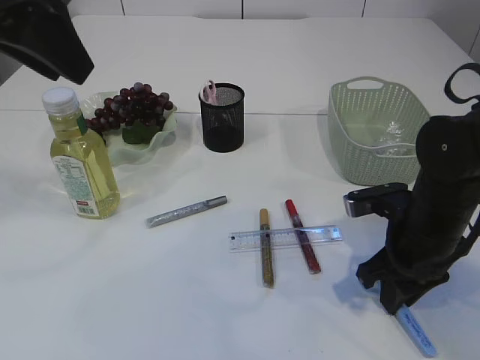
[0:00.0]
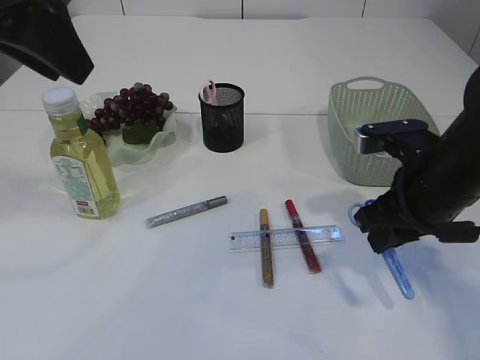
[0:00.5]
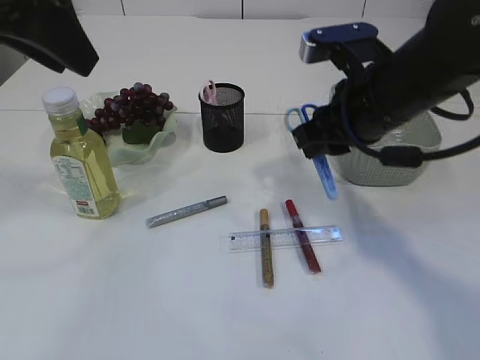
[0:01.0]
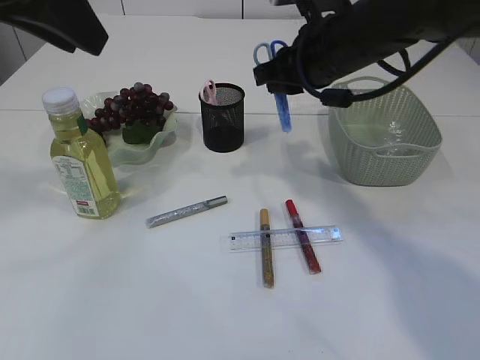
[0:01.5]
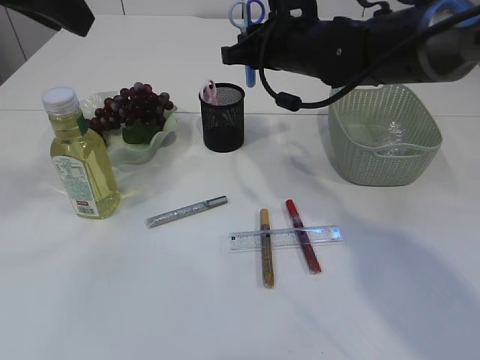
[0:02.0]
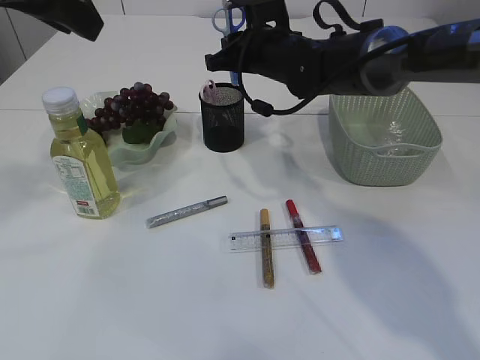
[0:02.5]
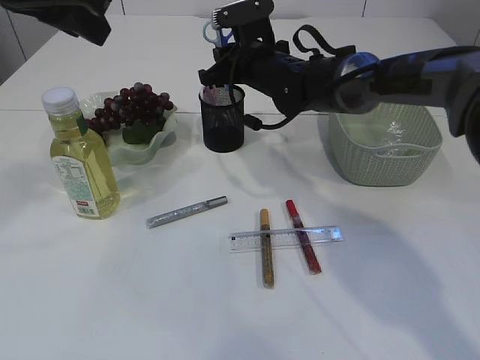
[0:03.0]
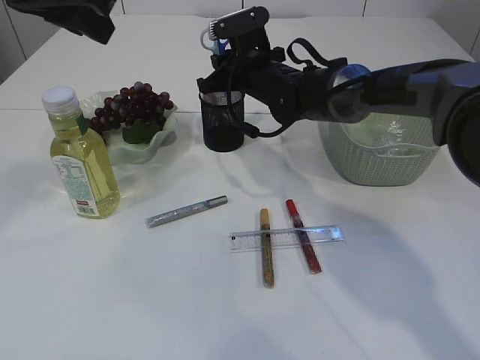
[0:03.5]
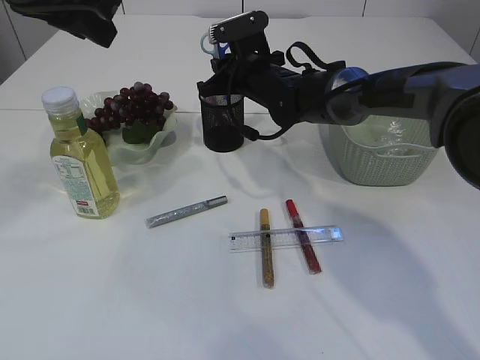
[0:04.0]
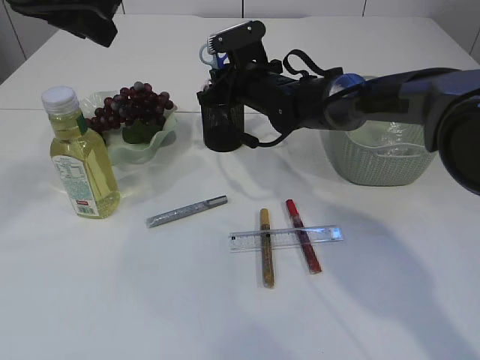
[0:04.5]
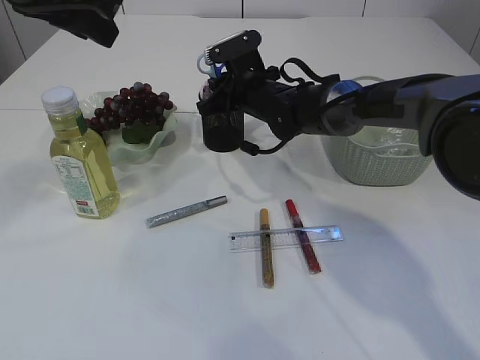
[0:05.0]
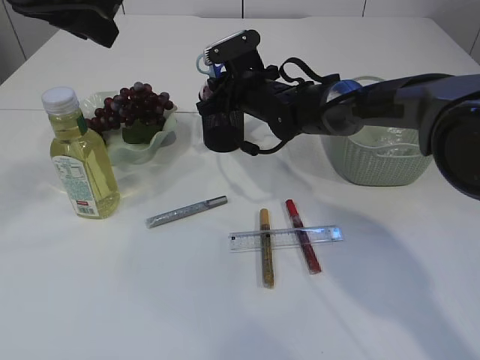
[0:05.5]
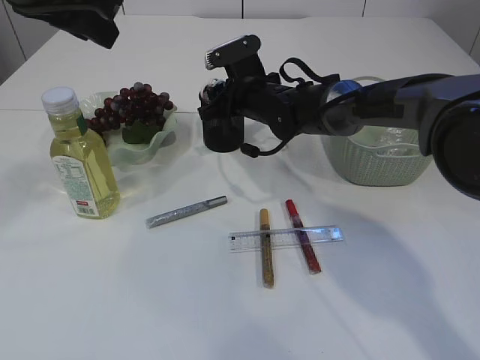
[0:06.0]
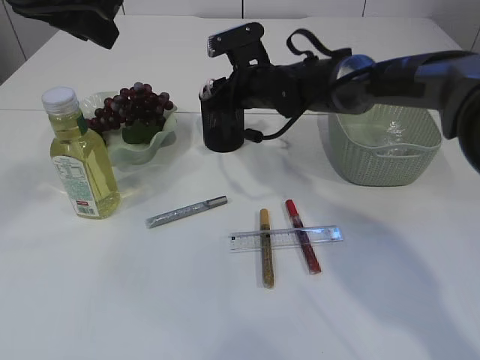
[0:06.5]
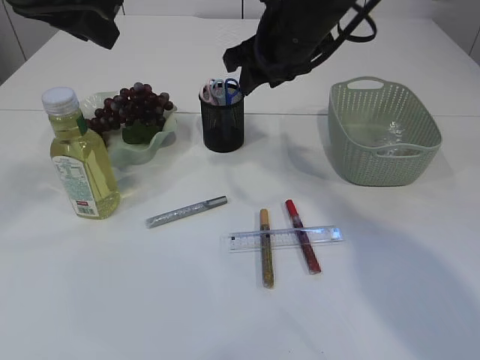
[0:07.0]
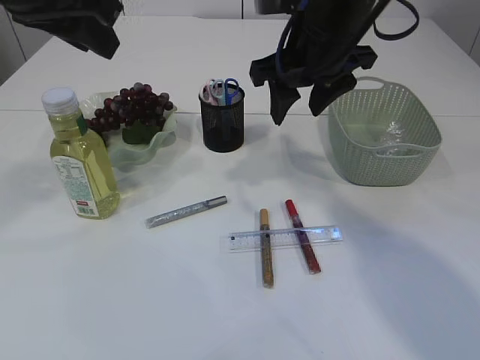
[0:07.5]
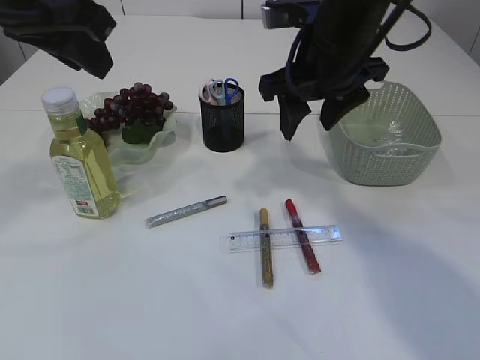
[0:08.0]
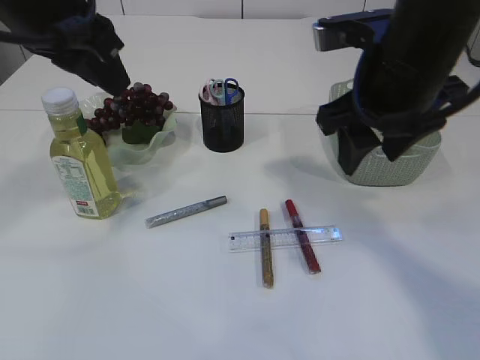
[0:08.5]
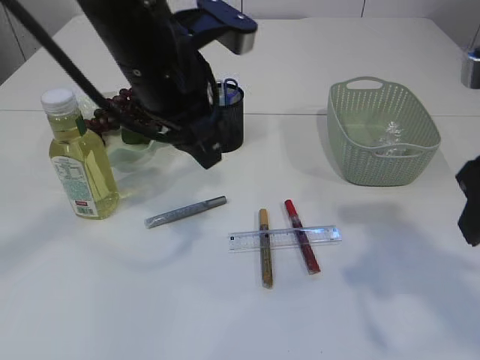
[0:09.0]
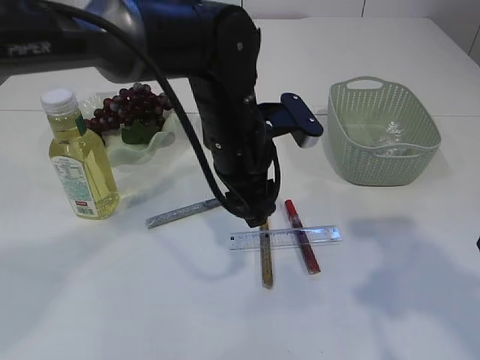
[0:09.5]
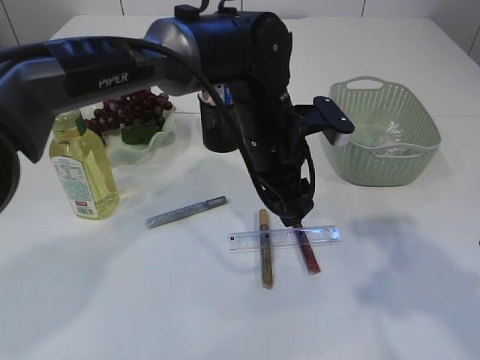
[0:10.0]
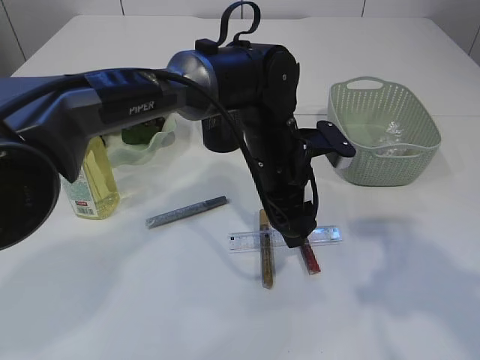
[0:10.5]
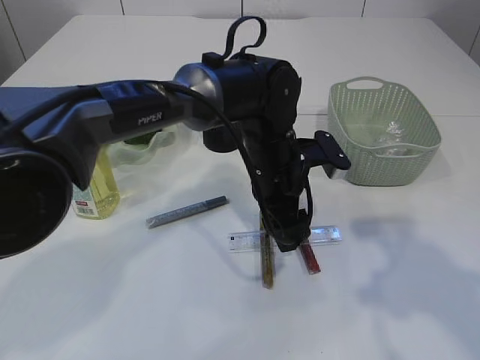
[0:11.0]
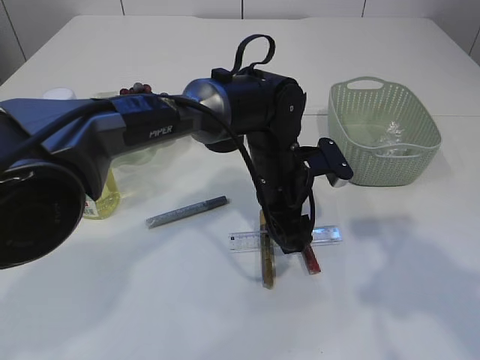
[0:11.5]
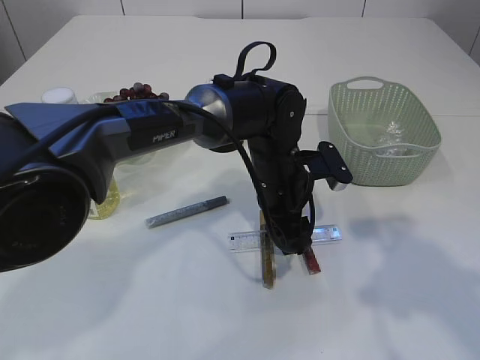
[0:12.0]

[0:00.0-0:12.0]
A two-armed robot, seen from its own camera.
Step, 0:01.0 to 0:07.0: Place the blue scissors into the pen holder.
0:00.0 to 0:02.0: The right gripper goes roughly 25 cm forward, upward and to the left.
0:02.0 to 0:04.0: The right gripper is displaced downward and forward by approximately 10 cm.
0:04.0 to 0:06.0: The grippers move only a little.
0:06.0 to 0:08.0: The right gripper heads upward, backward and to the right, covering some 20 cm.
0:08.0 to 0:10.0: The right gripper heads backward and to the right, covering roughly 25 cm, while the left gripper moves to the right and downward, approximately 25 cm.
0:10.0 to 0:12.0: The left gripper is displaced downward by some 5 cm.

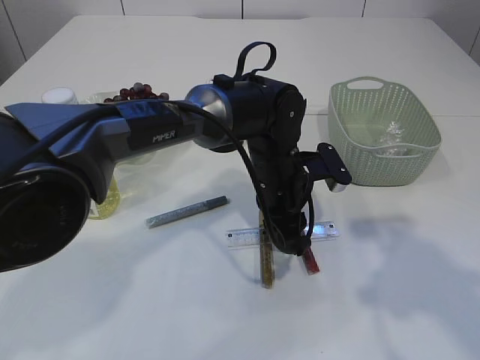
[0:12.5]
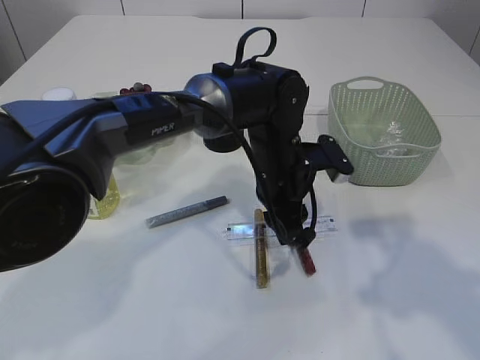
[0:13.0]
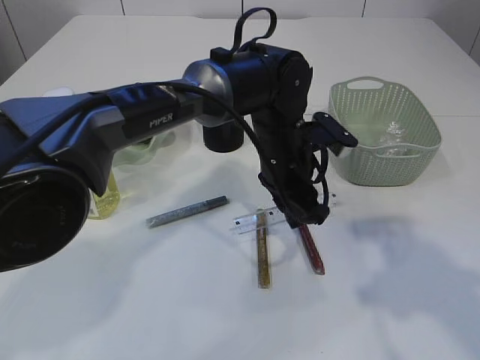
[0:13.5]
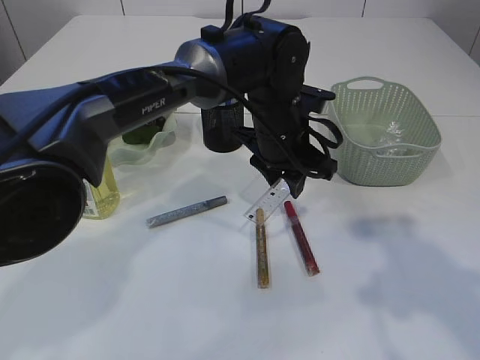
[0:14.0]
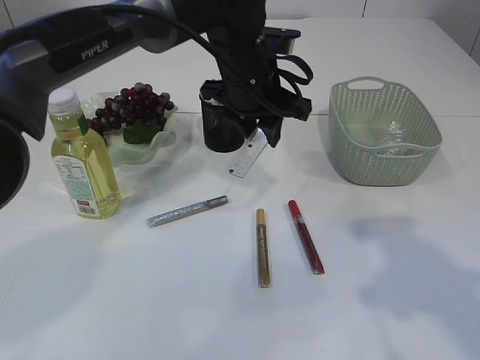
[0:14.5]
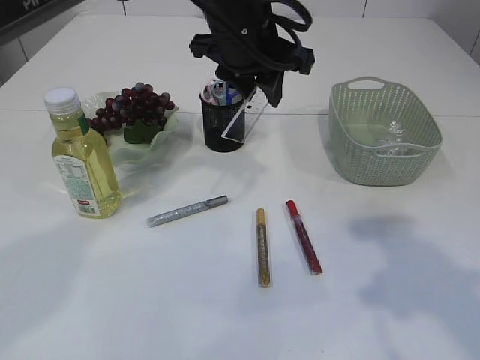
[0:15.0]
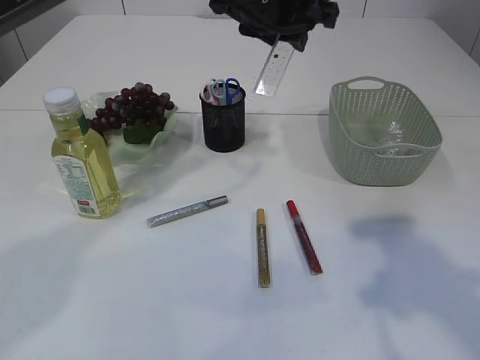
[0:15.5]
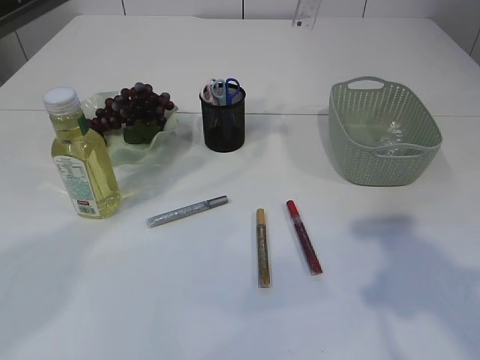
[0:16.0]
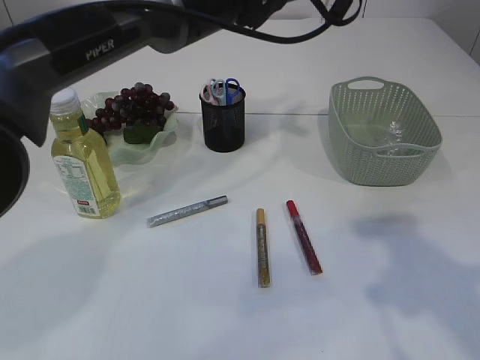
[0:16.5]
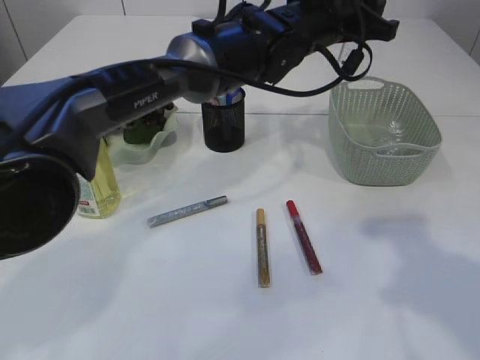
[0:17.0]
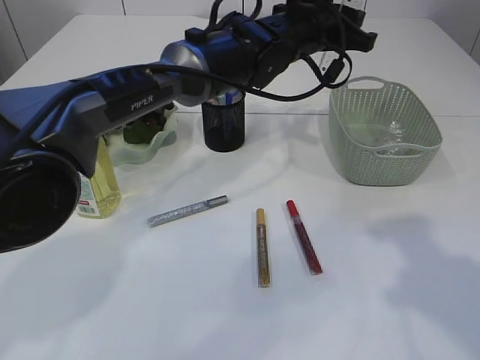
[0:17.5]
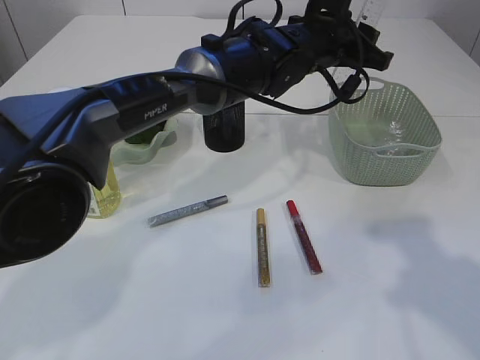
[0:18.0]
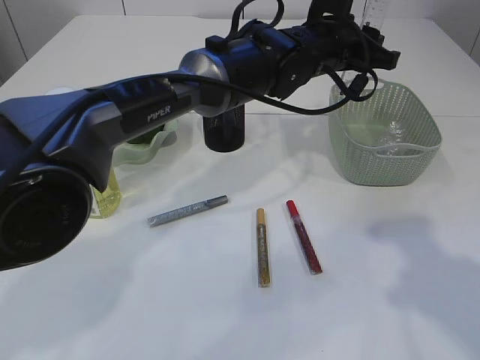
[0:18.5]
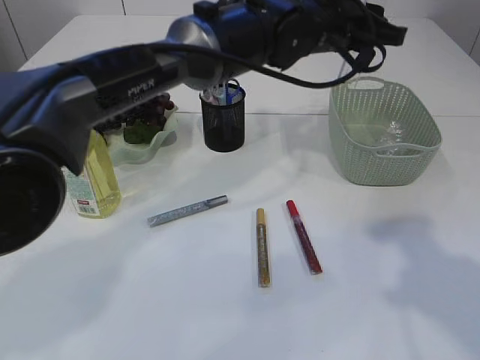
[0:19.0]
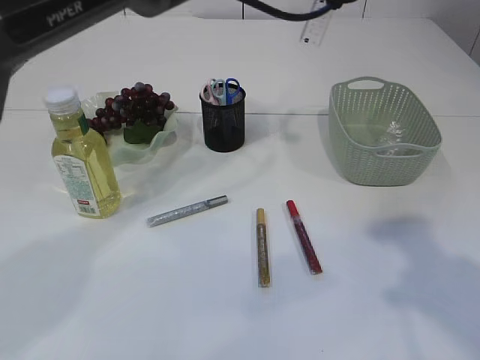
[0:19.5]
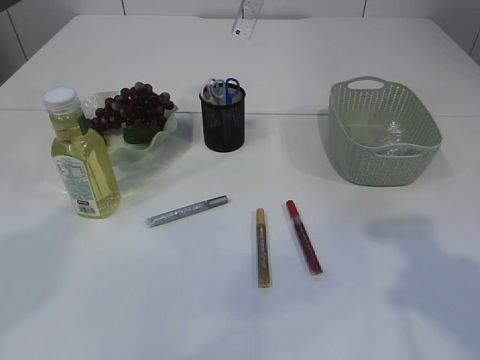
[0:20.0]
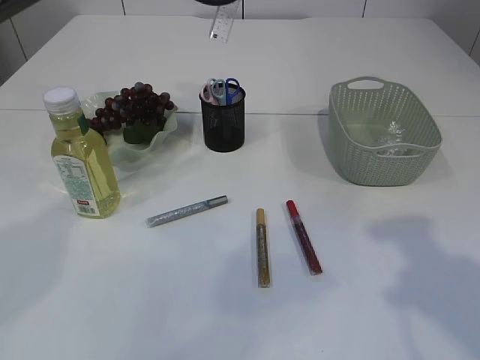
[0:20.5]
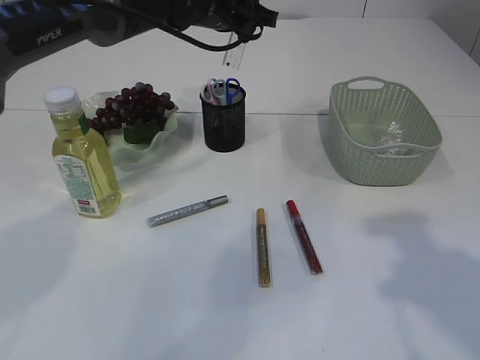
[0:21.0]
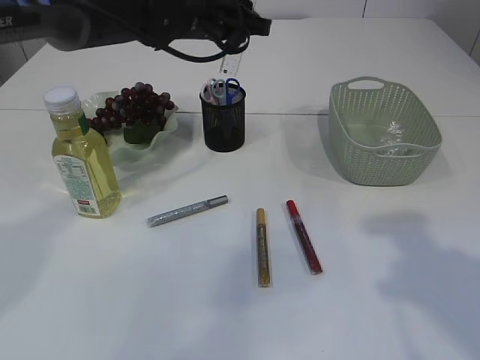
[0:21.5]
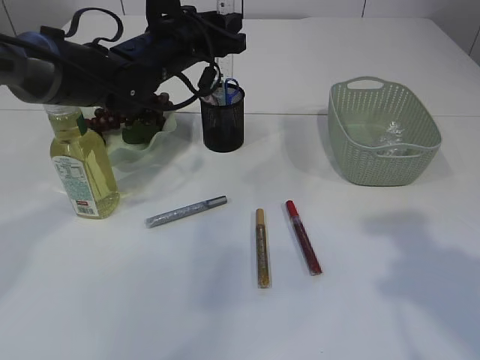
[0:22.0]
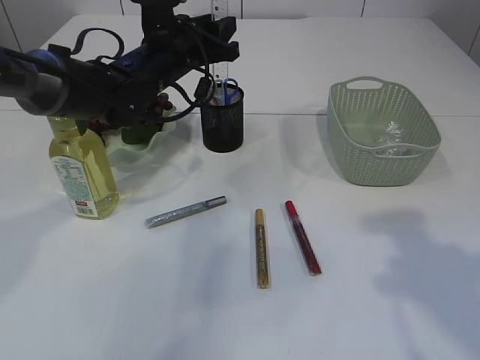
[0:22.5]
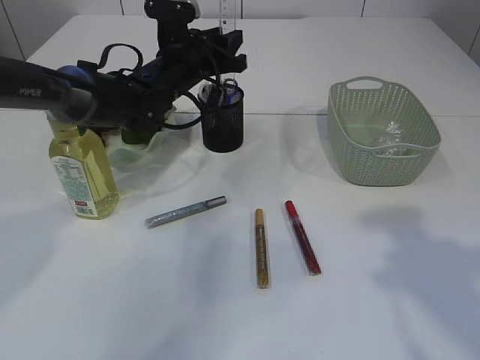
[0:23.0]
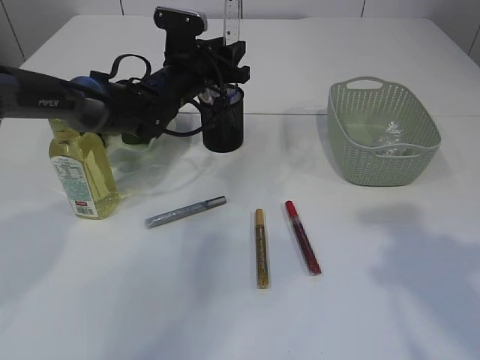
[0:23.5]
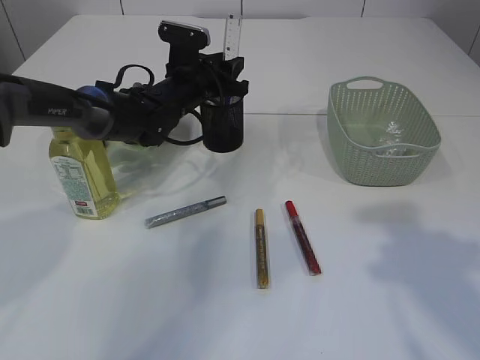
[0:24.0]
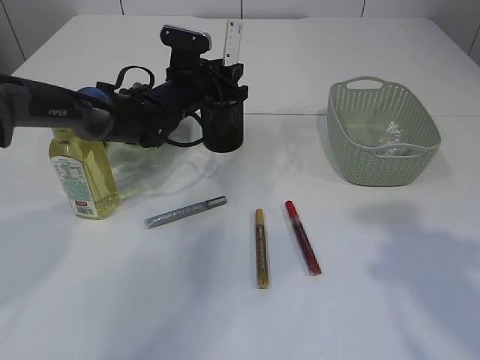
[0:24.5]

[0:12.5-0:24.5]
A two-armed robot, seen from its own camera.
0:12.5 to 0:14.5: The left gripper moves upward, about 10 cm.
0:14.5 to 0:16.5: The left gripper travels upward by roughly 10 cm.
0:16.5 to 0:18.5: The left gripper moves downward, some 10 cm.
0:18.5 to 0:20.5: The left gripper shifts roughly 15 cm to the left and upward.
0:20.5 to 0:22.5: The left gripper goes about 15 cm downward and to the left.
0:22.5 to 0:24.5: The left gripper goes some 5 cm downward.

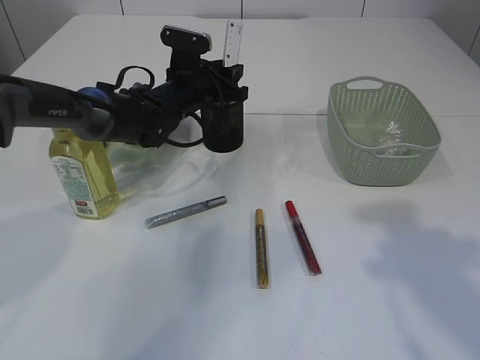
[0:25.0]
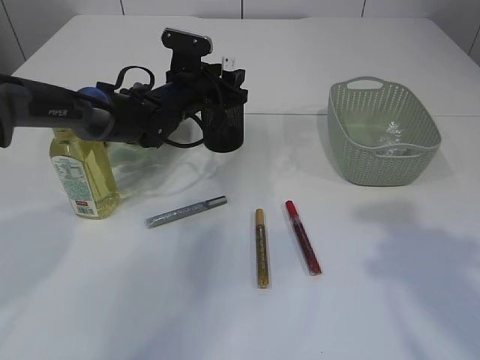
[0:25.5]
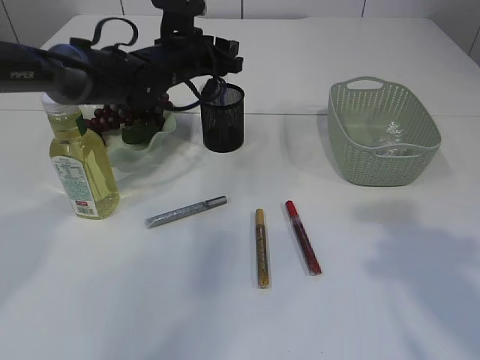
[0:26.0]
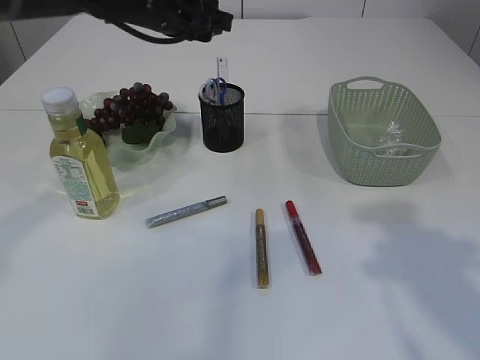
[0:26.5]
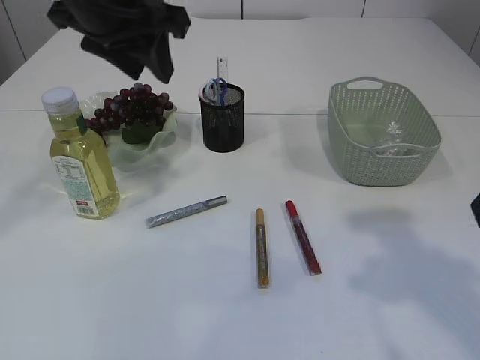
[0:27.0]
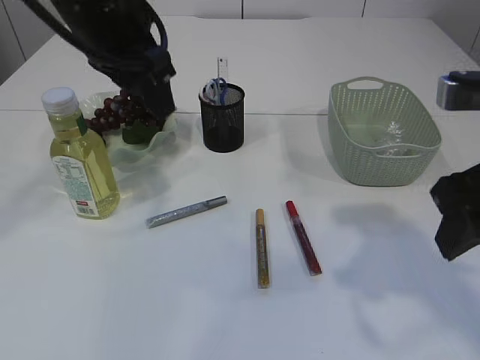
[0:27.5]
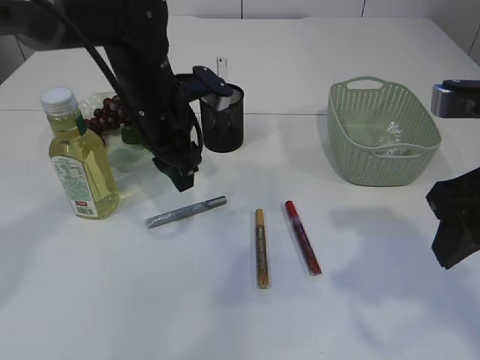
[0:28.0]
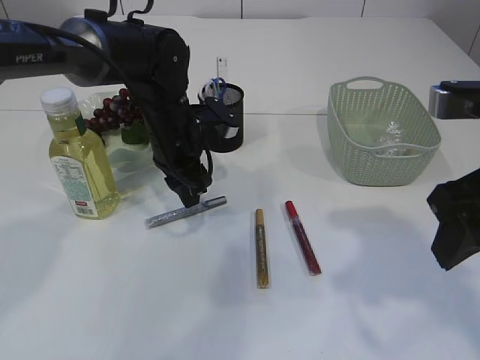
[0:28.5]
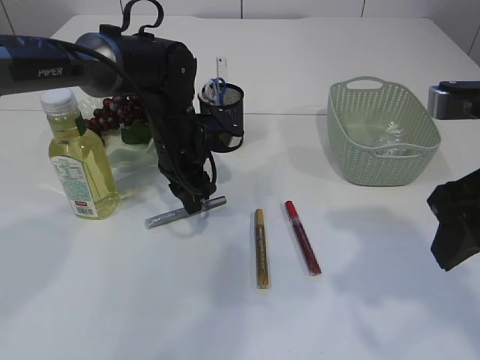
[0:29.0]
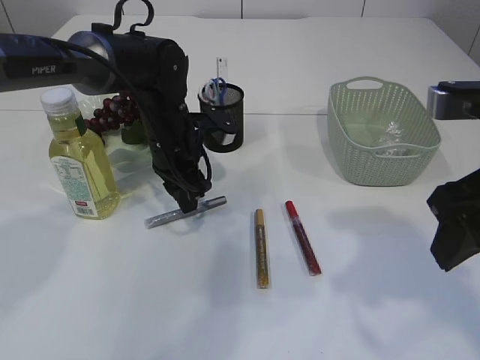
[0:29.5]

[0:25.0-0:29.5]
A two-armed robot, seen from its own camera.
0:25.0 to 0:27.0: The left gripper is displaced upward and backward by approximately 25 cm.
0:27.0 to 0:29.5: The right gripper moves about 5 cm, while the left gripper goes approximately 20 cm downward.
